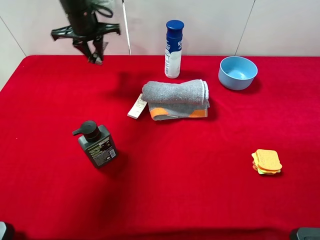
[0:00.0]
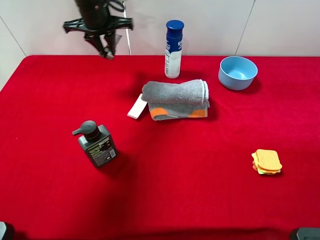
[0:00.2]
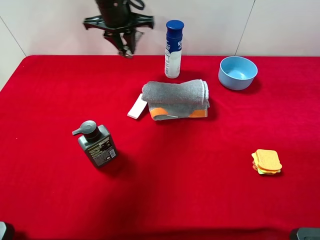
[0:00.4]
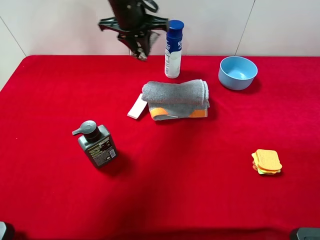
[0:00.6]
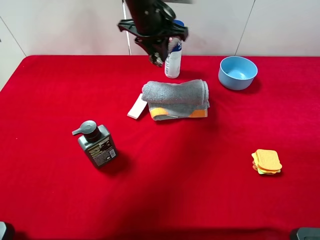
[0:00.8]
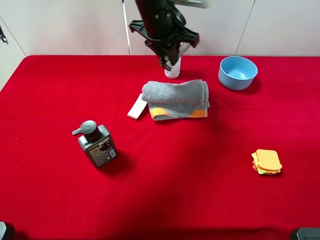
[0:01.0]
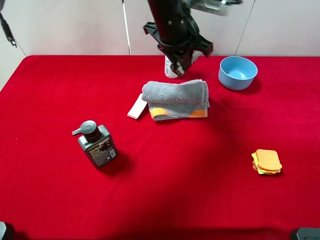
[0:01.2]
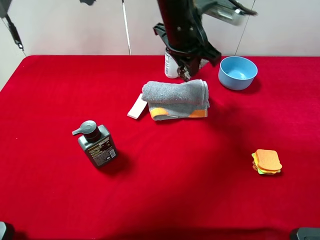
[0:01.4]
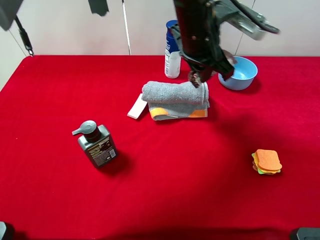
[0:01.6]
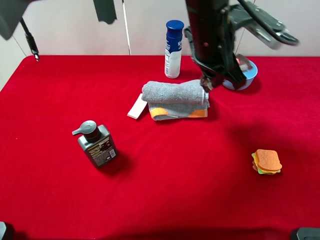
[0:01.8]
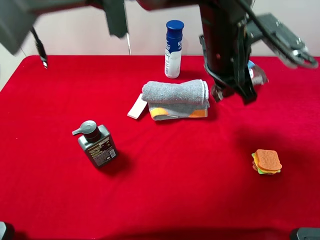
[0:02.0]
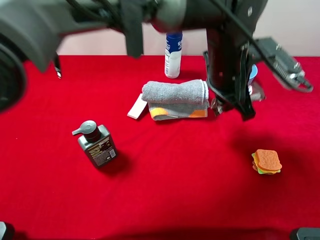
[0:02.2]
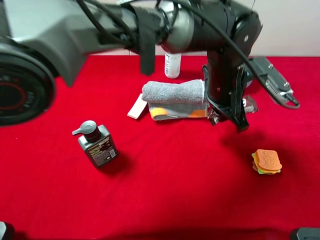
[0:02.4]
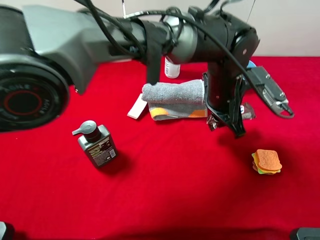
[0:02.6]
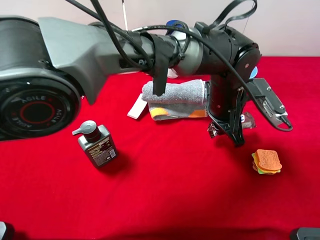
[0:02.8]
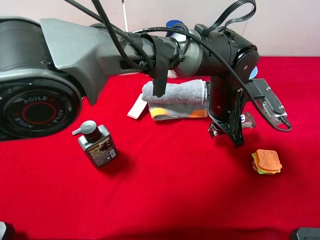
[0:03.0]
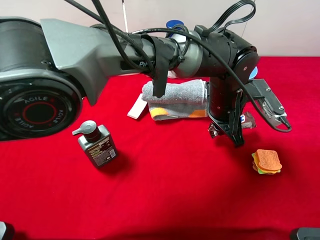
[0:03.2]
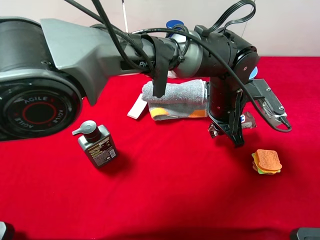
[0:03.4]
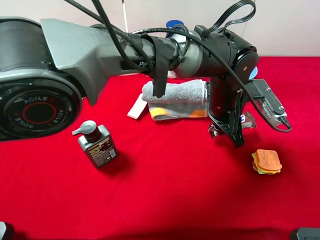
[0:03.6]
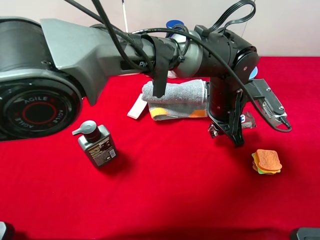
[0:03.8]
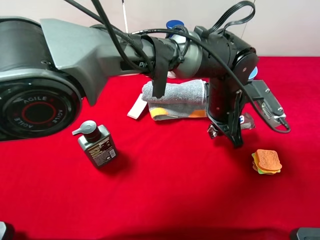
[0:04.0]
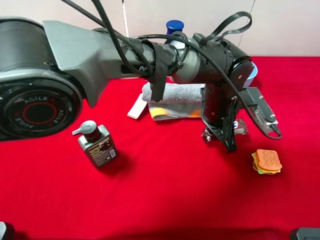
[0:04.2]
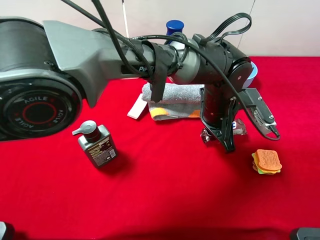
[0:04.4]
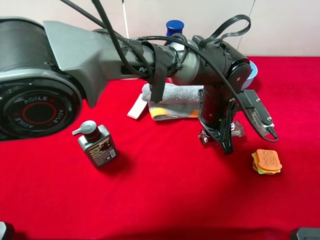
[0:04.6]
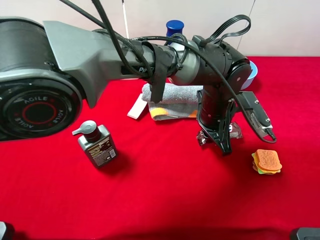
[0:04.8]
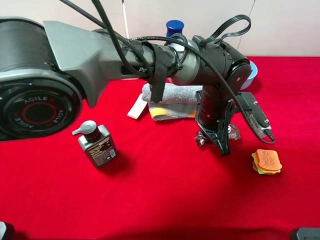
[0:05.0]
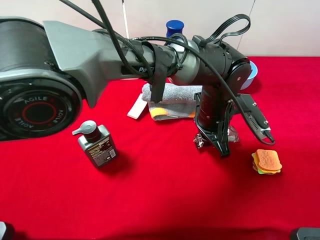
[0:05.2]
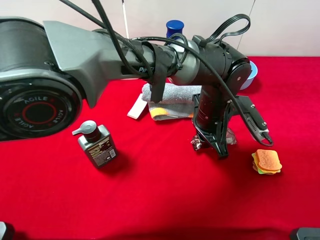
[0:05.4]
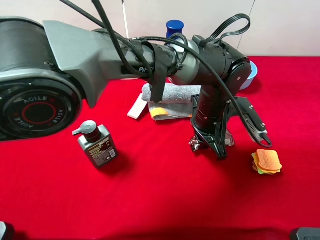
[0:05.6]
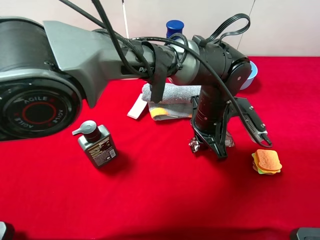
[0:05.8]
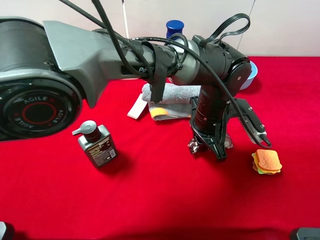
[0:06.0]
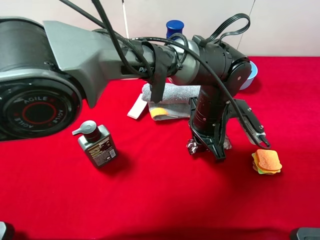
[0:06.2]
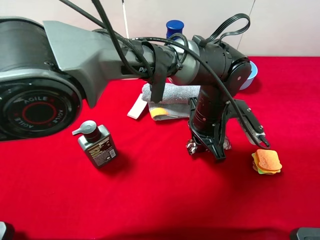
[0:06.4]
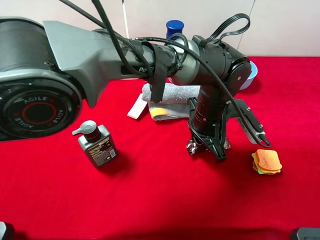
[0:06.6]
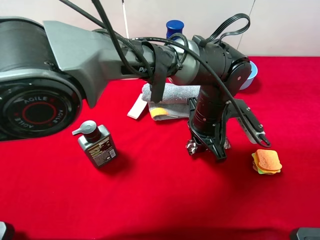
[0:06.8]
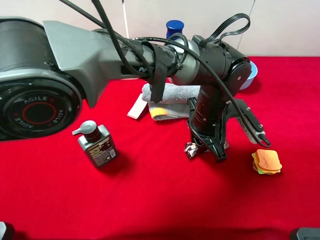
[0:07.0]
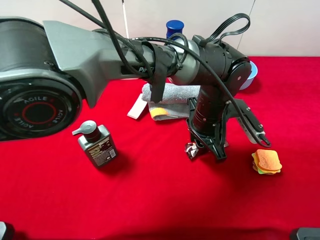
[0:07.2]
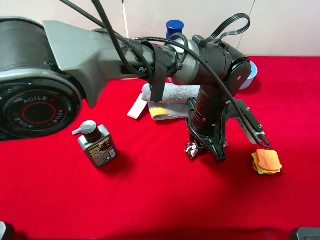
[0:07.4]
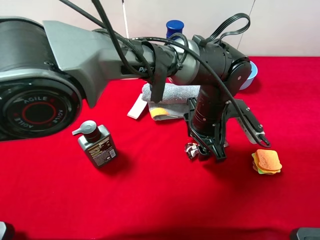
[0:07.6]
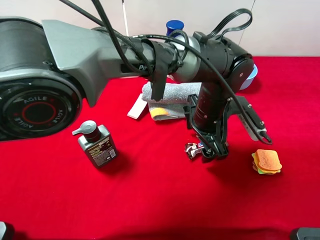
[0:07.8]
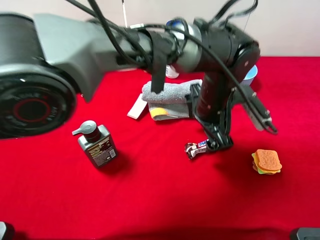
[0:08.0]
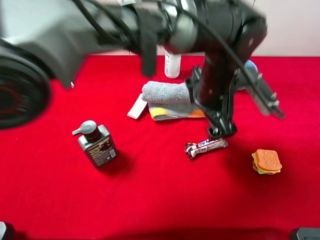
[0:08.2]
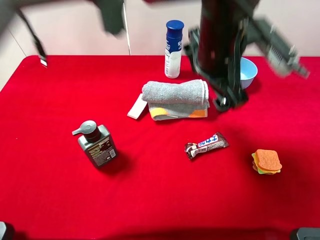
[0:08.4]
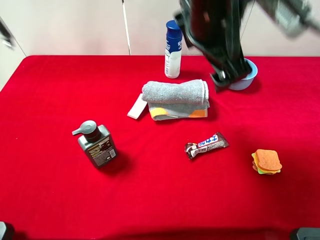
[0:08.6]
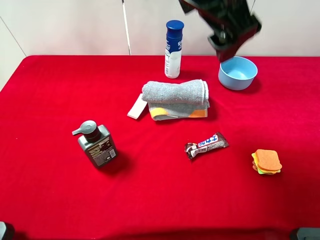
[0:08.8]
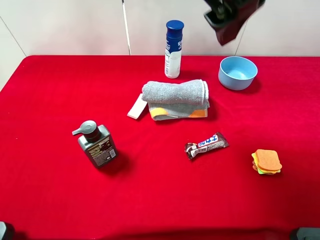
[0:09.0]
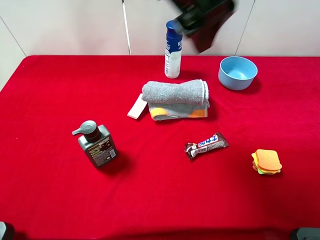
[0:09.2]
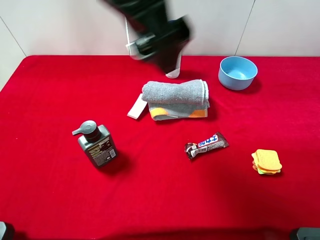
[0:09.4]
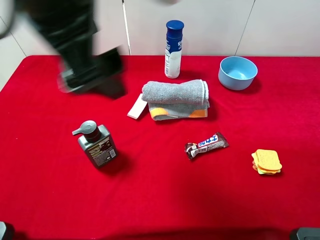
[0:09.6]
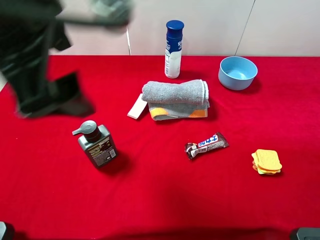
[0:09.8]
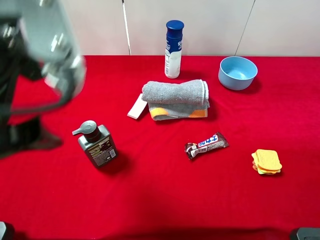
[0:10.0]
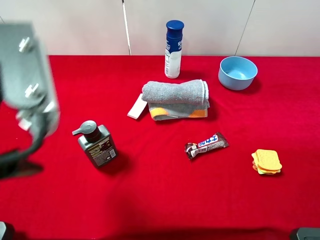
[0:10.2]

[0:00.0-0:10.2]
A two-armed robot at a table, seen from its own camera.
Task of the whole recording: the gripper move the object.
Step, 0:00.0 to 0:08.2: Place the snickers on the table with the left gripper.
0:00.0 to 0:01.4: The left gripper goes some 25 cm to the right and backward.
0:01.4 to 0:03.0: The left gripper is displaced downward, to the right and backward by some 15 cm.
0:03.0 to 0:05.8: The grippers stay close to where they were, moving slightly.
0:05.8 to 0:07.2: The two grippers keep their place.
0:07.2 to 0:08.8: The left gripper shifts roughly 25 cm upward, and opens up.
0:08.8 to 0:10.2: The left gripper moves to the left and backward, approximately 25 cm.

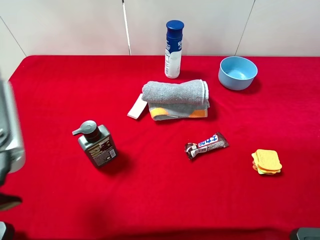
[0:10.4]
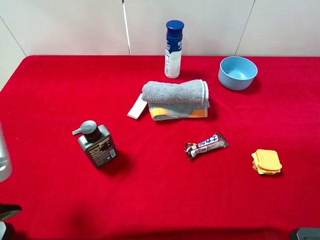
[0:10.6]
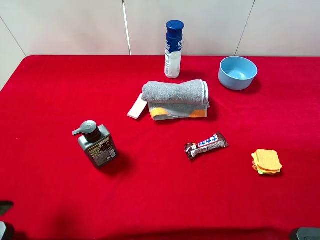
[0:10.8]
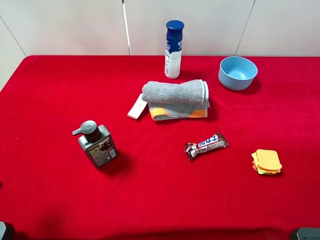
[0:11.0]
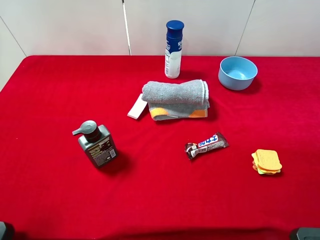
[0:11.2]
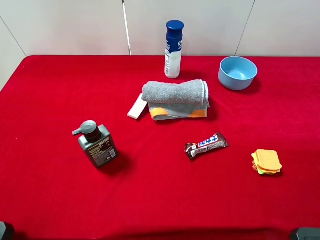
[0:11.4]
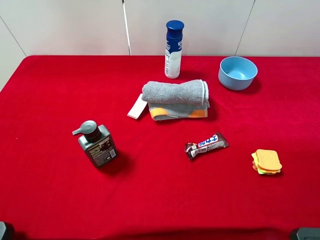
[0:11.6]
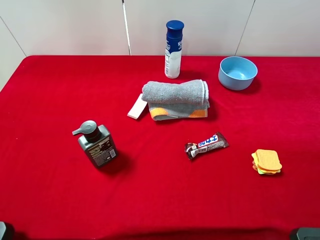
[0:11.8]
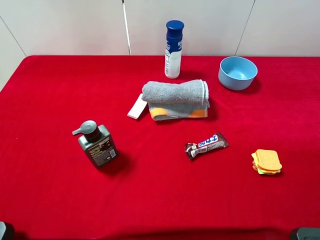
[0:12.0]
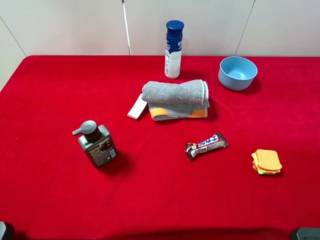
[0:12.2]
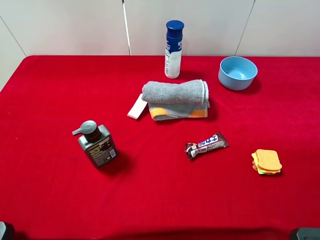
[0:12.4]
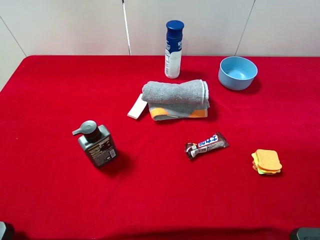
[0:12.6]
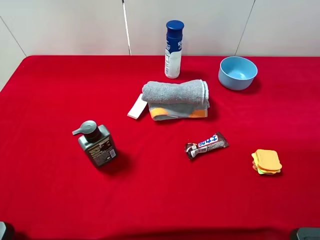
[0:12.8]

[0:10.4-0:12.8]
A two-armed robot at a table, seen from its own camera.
Task of the whole recording: the gripper move the object.
0:10.4 to 0:11.6: The left gripper moves to the left and backward, some 15 cm.
